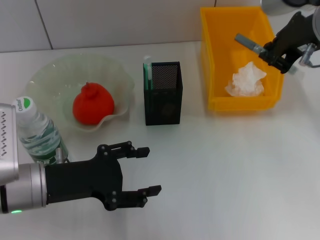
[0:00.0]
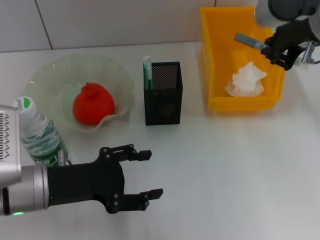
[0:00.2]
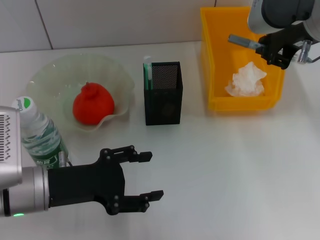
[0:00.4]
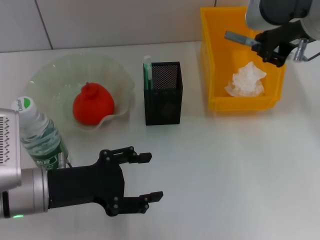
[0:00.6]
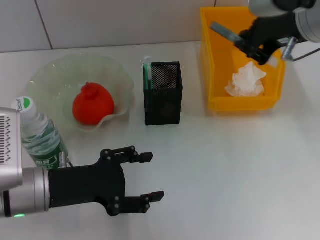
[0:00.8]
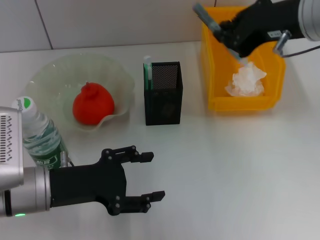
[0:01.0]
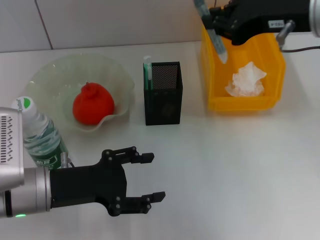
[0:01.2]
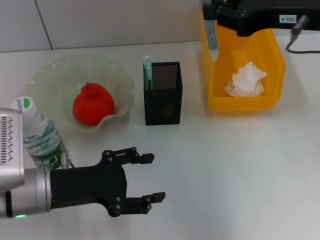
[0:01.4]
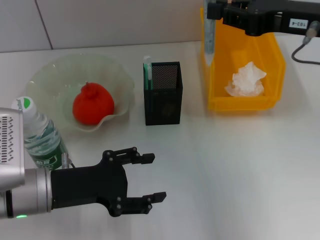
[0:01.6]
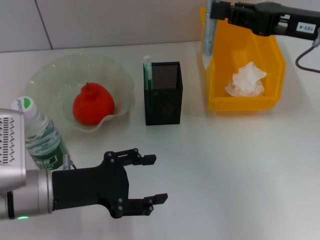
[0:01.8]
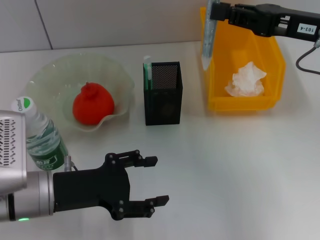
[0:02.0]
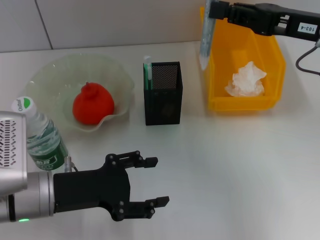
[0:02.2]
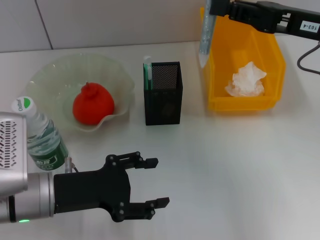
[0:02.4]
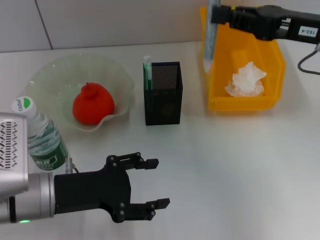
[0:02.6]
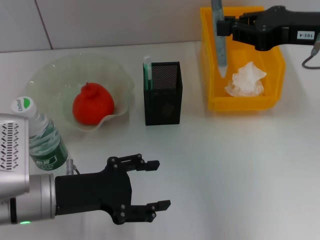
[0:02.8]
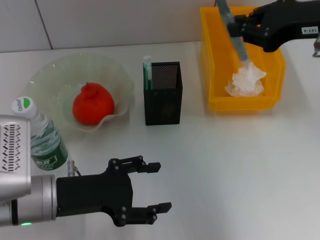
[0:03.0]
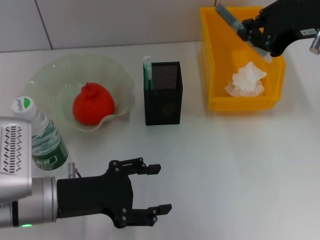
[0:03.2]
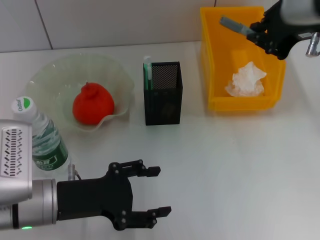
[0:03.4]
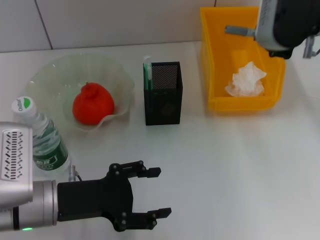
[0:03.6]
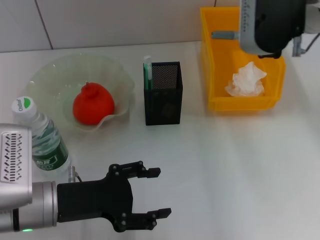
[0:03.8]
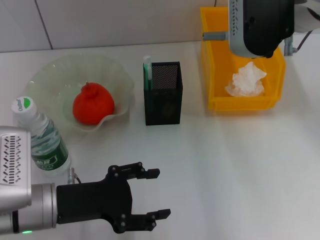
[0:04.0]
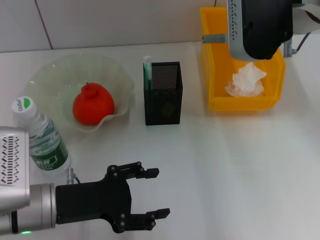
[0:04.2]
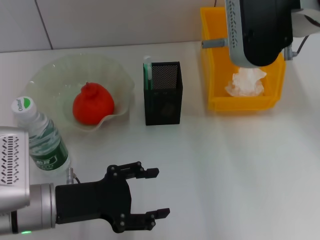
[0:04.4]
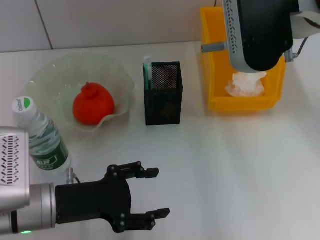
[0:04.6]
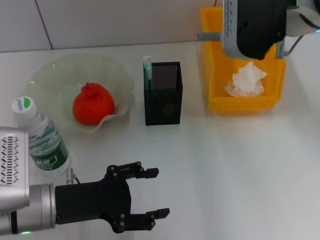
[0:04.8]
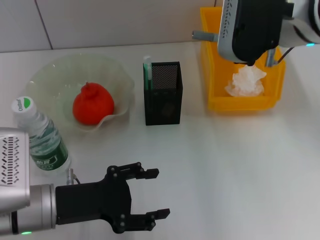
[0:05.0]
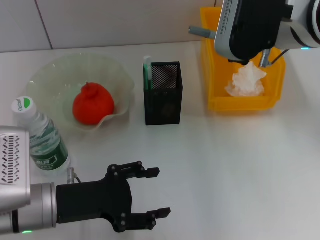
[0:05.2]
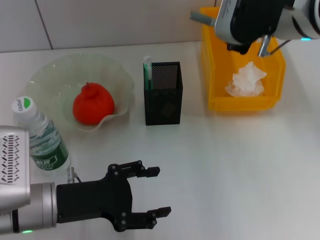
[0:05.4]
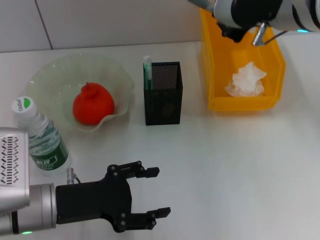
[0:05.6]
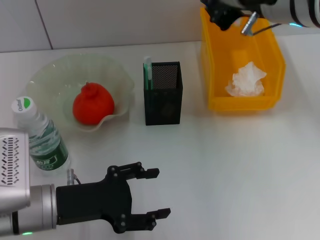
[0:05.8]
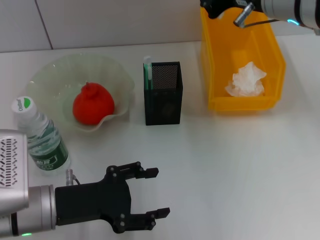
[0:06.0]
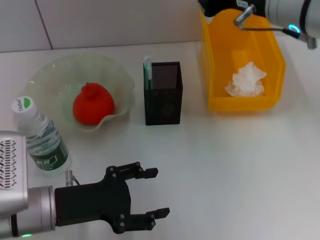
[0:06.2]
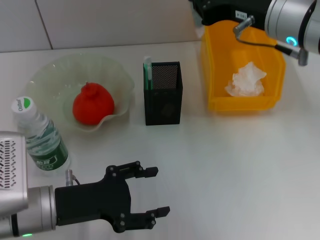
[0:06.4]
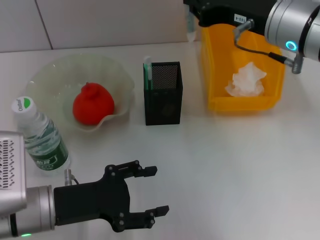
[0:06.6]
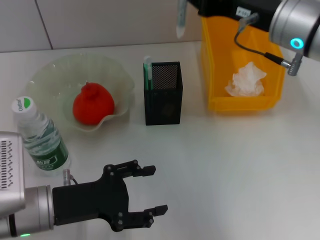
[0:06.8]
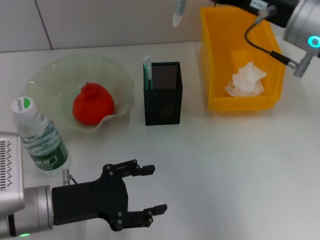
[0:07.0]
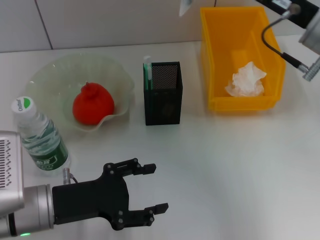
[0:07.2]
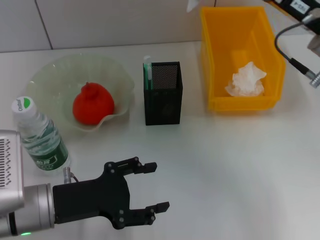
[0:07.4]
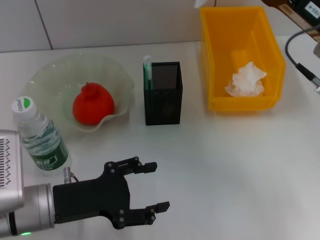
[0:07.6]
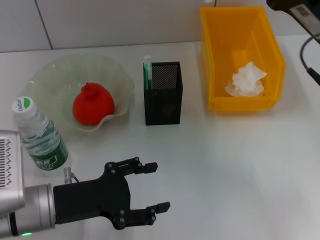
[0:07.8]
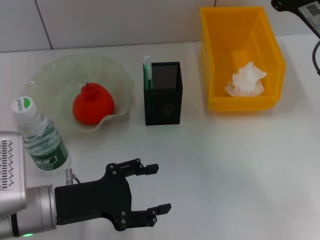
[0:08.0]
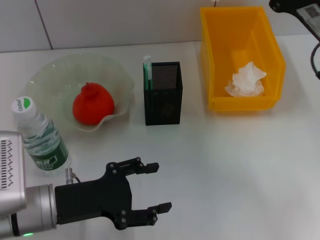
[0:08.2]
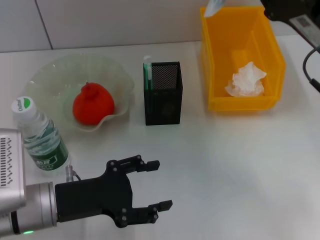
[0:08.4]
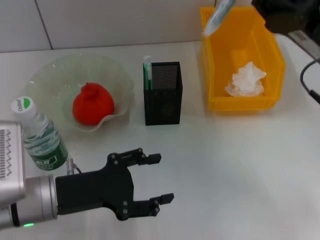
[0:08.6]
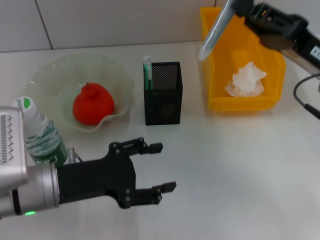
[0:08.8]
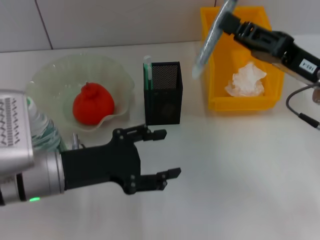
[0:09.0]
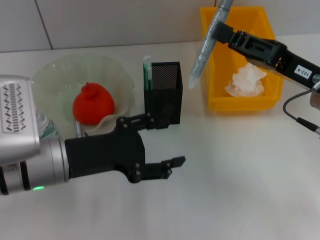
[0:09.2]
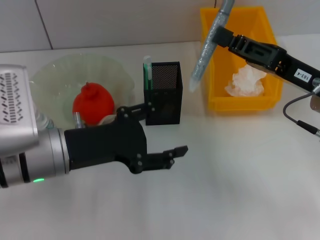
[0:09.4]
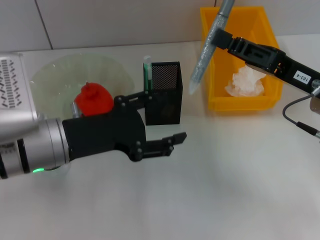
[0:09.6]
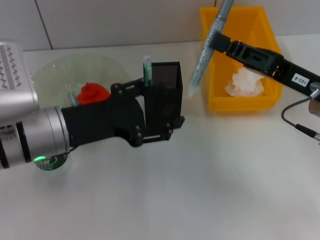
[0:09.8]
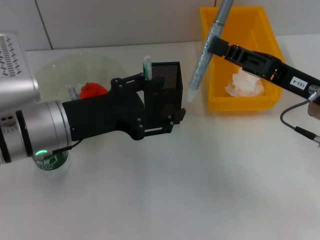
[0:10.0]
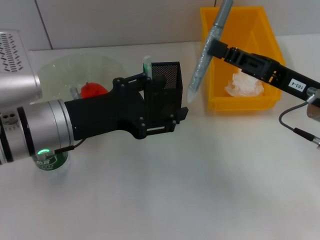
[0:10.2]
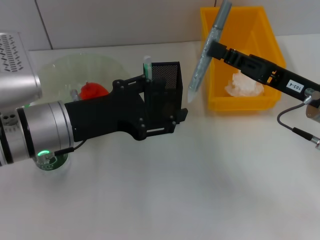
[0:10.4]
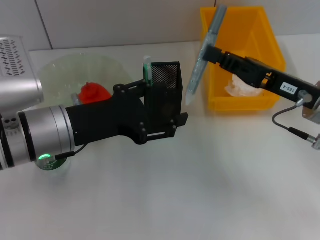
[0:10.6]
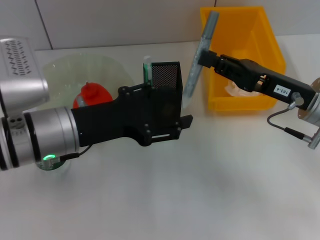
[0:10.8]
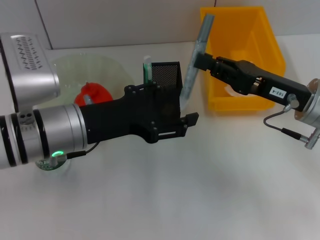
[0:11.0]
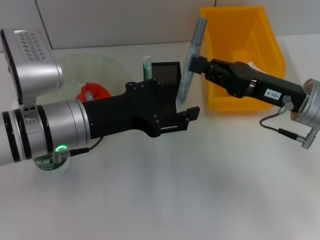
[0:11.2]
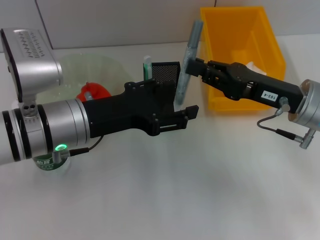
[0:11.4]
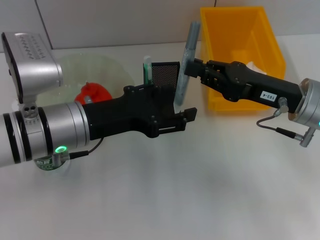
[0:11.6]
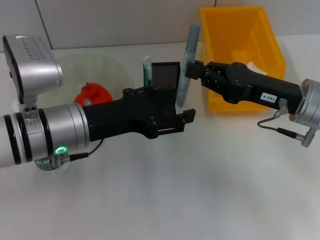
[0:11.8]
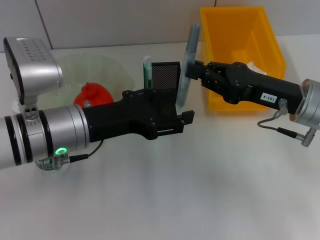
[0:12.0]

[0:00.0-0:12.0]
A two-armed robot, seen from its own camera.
0:00.0 to 0:01.6: The right gripper moves some 5 cm.
0:03.0 to 0:04.4: The right gripper shifts roughly 10 cm to the left.
0:06.0 to 0:07.6: The right gripper moves downward and to the right, about 15 cm.
0:09.0 to 0:10.4: The left gripper changes place by some 5 cm.
0:10.4 to 0:12.0: The grippers stay close to where they were, moving slightly.

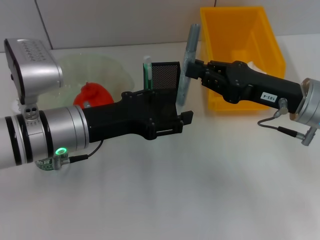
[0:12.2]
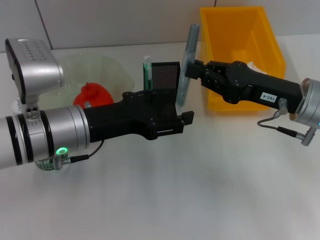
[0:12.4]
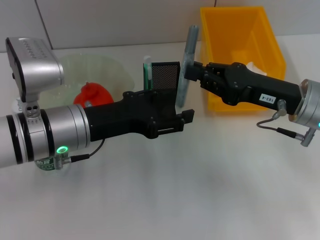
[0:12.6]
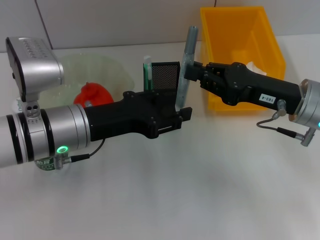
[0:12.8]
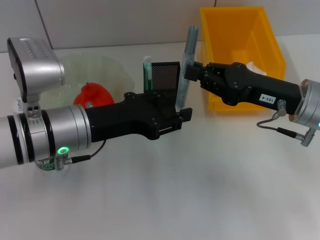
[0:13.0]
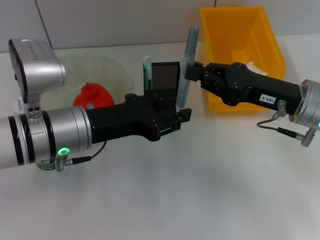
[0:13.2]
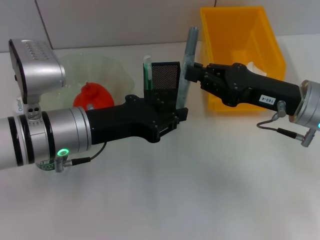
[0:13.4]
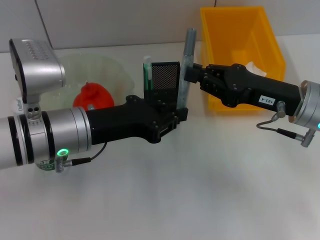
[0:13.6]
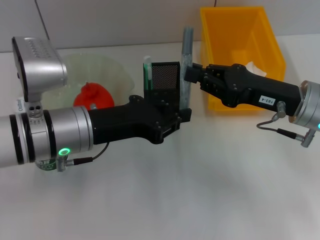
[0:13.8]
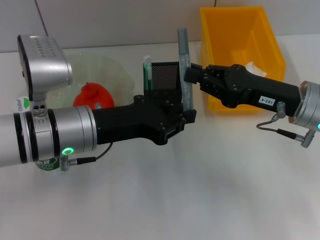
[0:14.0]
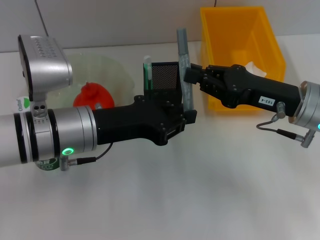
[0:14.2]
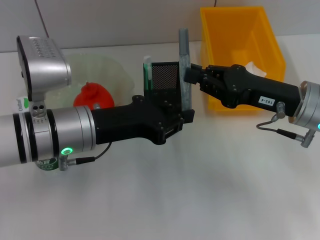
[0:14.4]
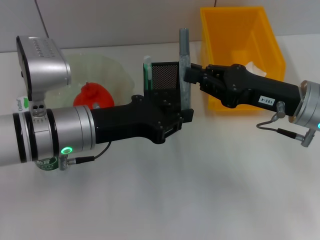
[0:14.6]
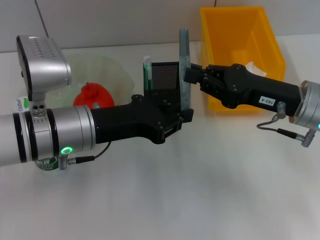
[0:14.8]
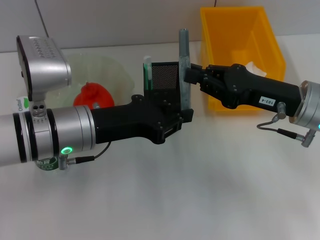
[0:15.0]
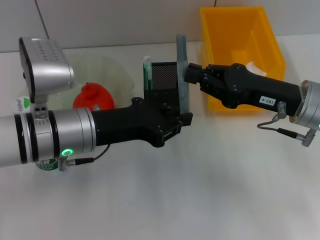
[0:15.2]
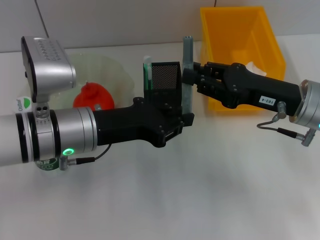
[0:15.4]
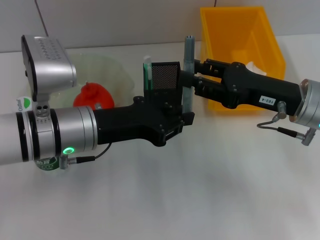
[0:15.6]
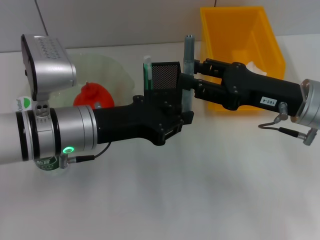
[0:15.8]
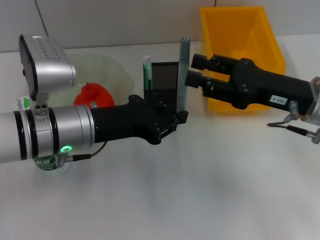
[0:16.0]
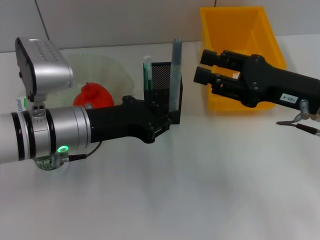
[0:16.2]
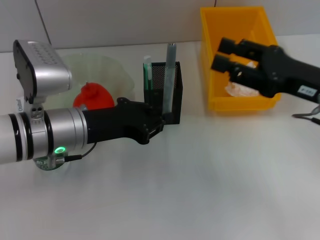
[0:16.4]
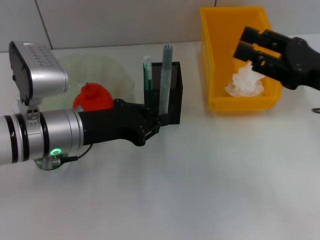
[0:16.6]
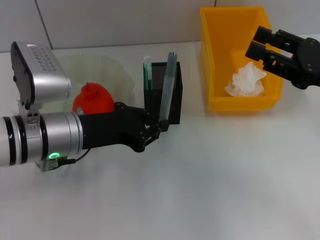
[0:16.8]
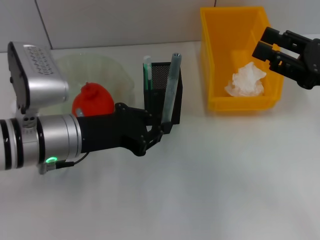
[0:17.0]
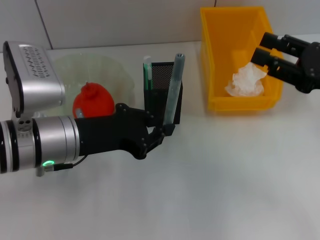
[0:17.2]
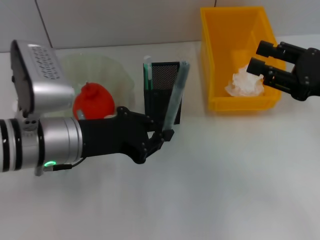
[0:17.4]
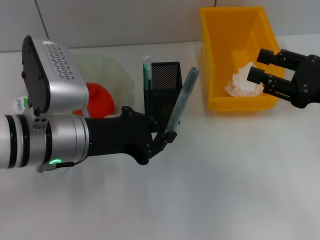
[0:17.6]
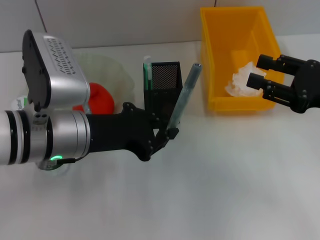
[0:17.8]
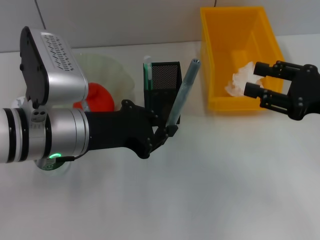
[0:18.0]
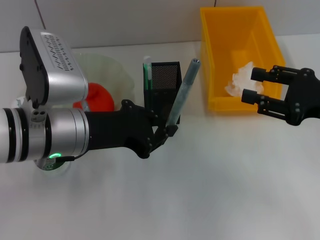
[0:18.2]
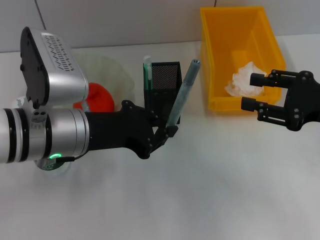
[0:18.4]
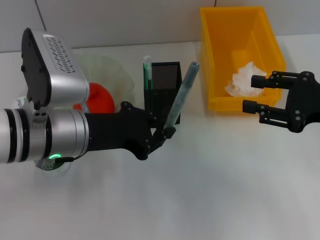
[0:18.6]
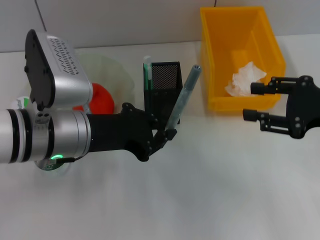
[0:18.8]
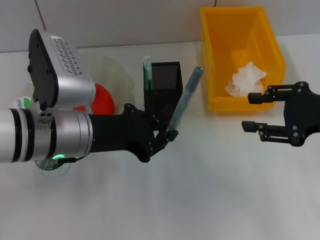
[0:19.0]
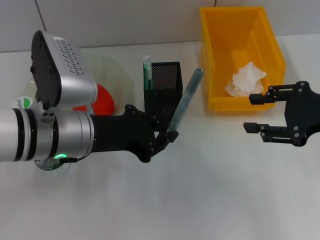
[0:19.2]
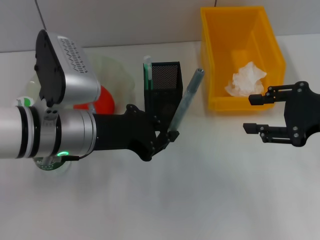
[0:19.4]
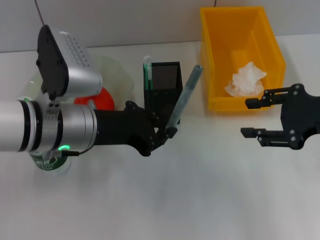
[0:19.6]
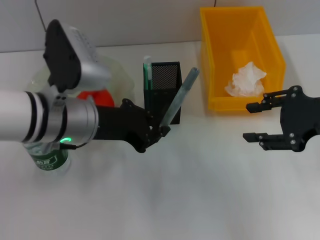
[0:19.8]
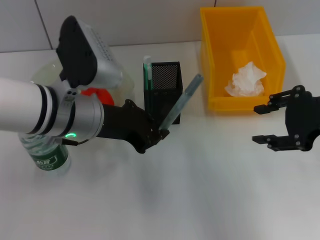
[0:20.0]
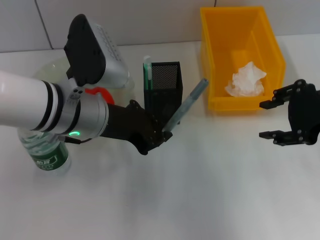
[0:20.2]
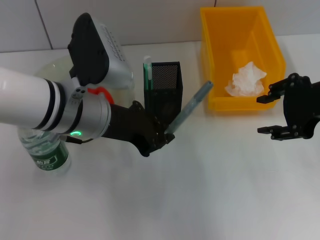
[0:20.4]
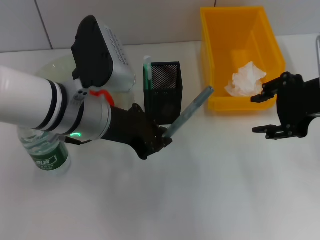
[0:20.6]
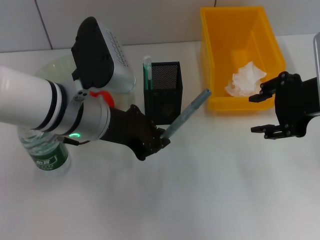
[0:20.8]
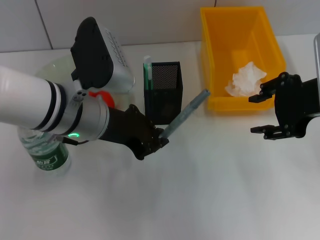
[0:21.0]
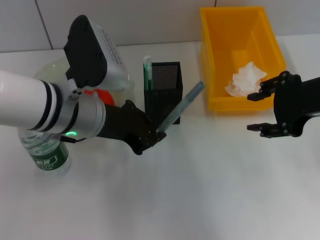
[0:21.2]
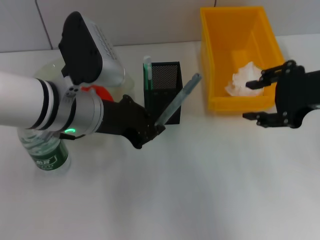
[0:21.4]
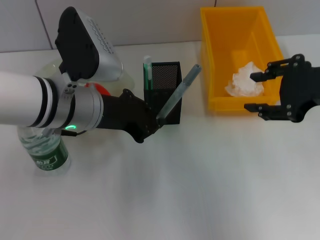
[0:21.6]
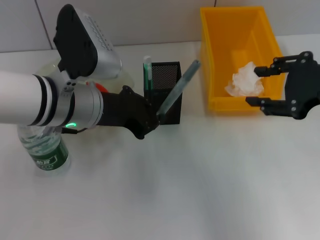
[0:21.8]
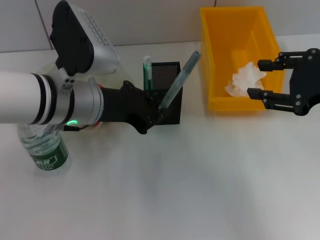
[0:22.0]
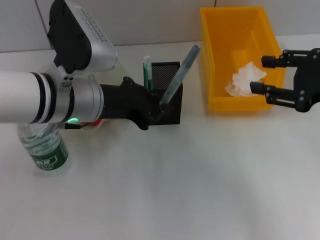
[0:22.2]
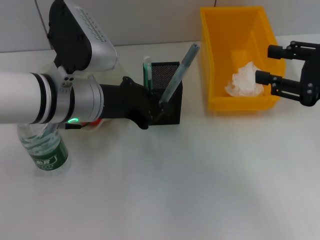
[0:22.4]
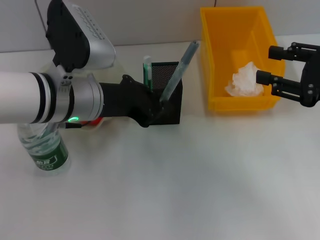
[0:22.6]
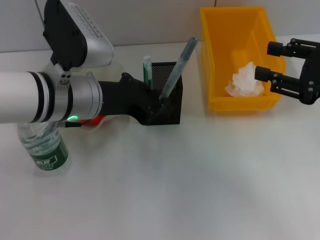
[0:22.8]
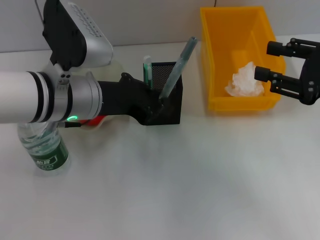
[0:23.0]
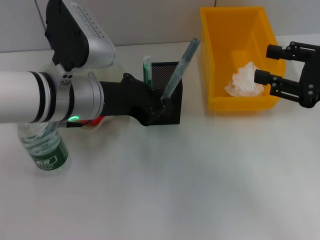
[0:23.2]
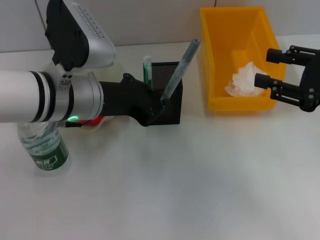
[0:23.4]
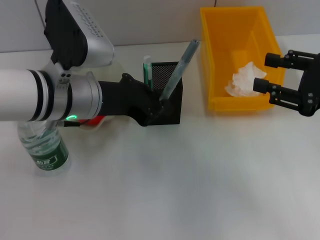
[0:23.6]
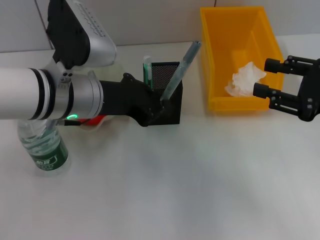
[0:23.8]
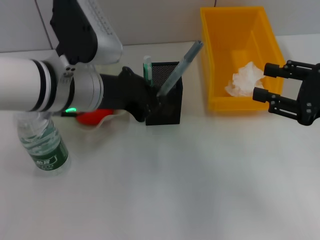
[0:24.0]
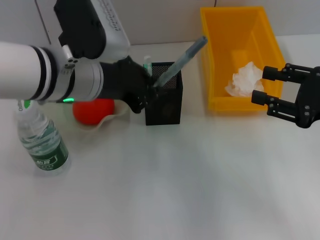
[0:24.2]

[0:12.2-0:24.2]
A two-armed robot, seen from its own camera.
Step, 0:12.2 to 0:15.8: Pass the gray glue from the right hand to the left hand.
0:12.2 to 0:13.8: The left gripper closes.
0:13.8 to 0:15.2: Neither gripper changes place.
0:15.2 to 0:16.6: The right gripper travels to the right by roughly 5 cm, and opens.
0:16.6 to 0:18.2: The grippers make only small movements.
0:19.8 to 0:21.2: The right gripper changes place by roughly 5 cm.
0:21.2 to 0:22.6: The right gripper travels to the right by about 5 cm.
0:22.6 to 0:24.2: The grippers stay close to where they were, moving slightly.
